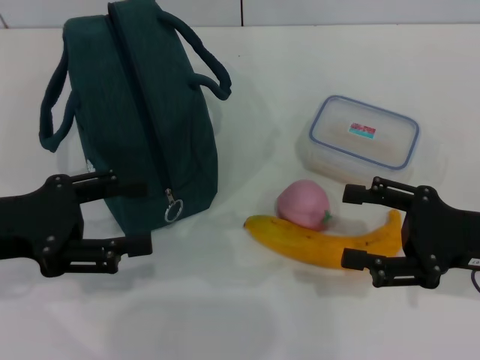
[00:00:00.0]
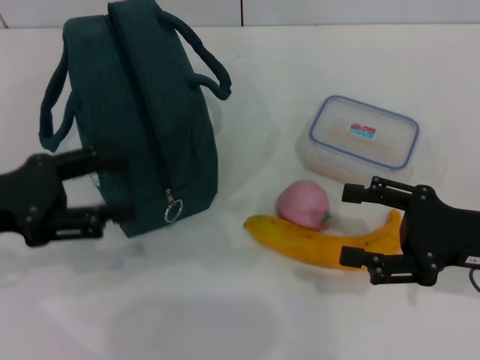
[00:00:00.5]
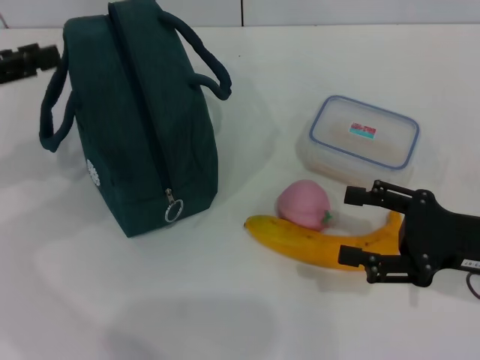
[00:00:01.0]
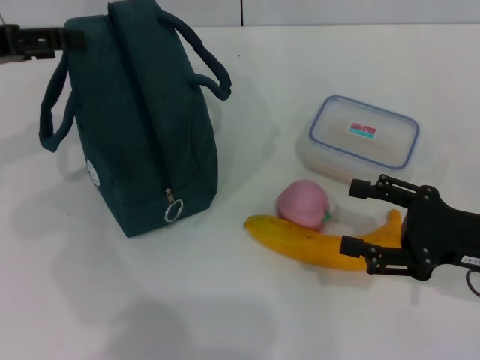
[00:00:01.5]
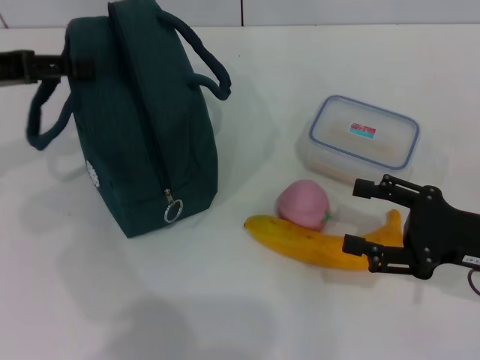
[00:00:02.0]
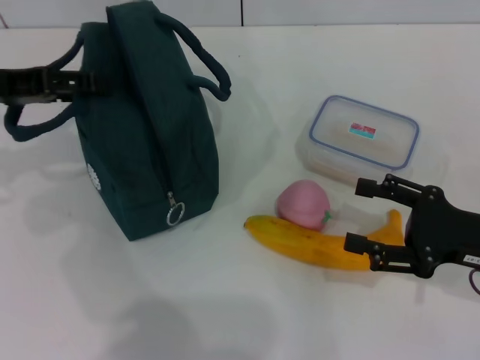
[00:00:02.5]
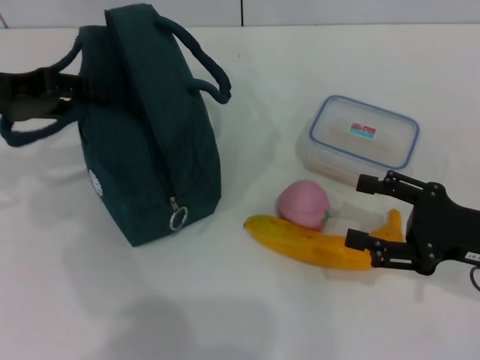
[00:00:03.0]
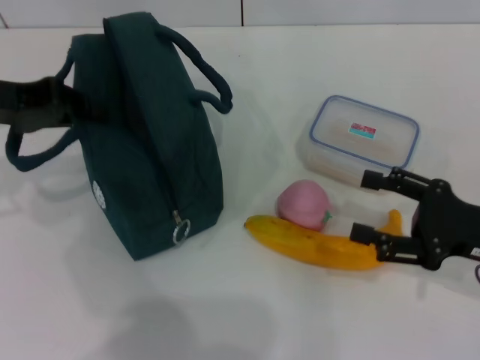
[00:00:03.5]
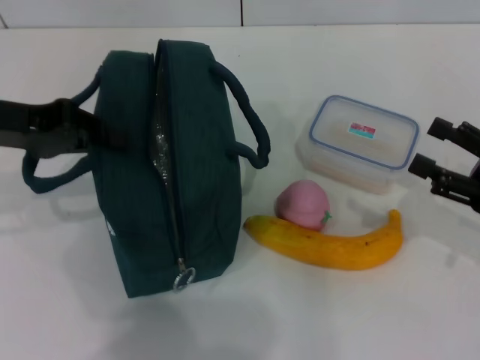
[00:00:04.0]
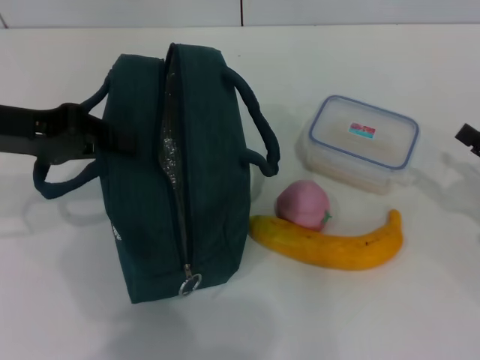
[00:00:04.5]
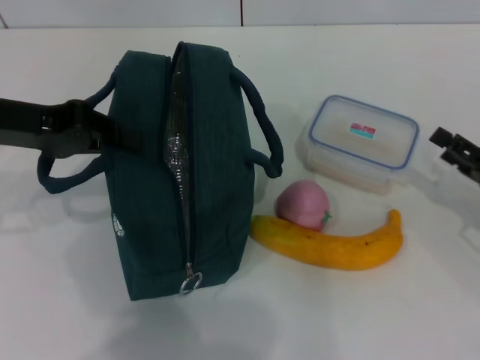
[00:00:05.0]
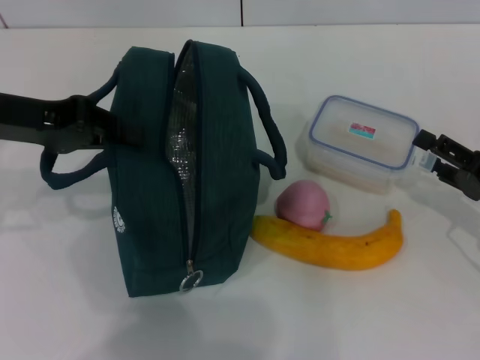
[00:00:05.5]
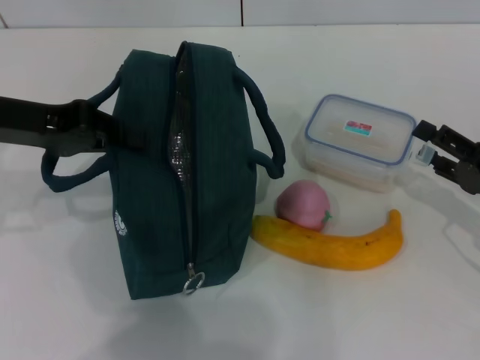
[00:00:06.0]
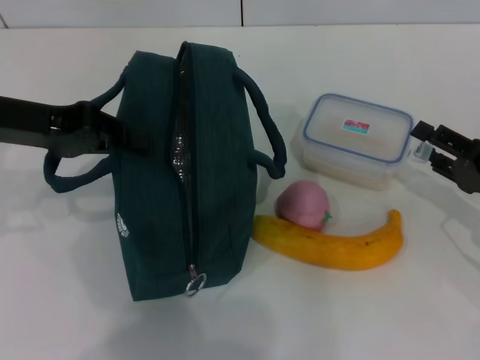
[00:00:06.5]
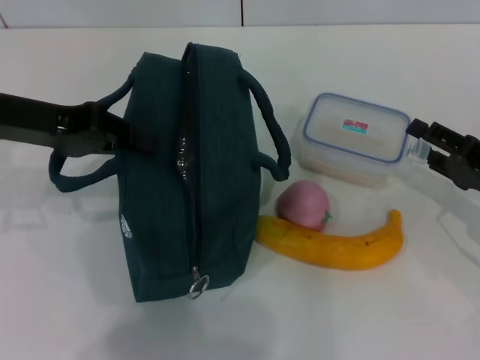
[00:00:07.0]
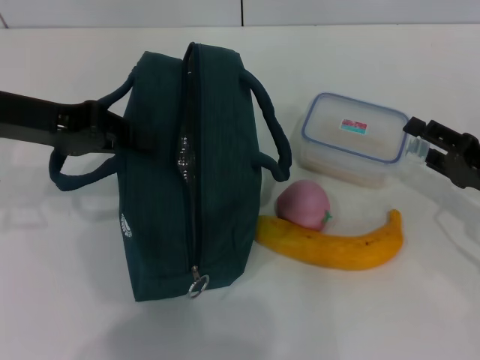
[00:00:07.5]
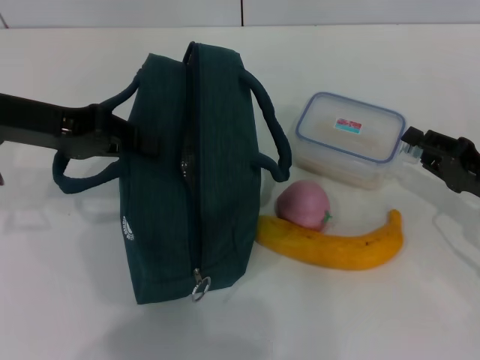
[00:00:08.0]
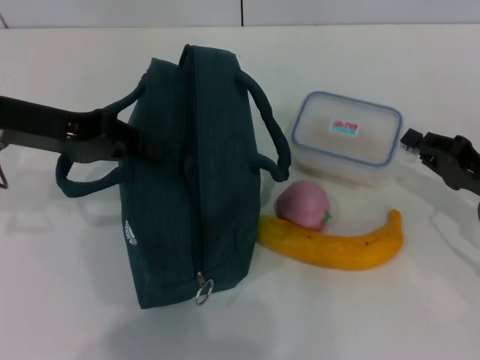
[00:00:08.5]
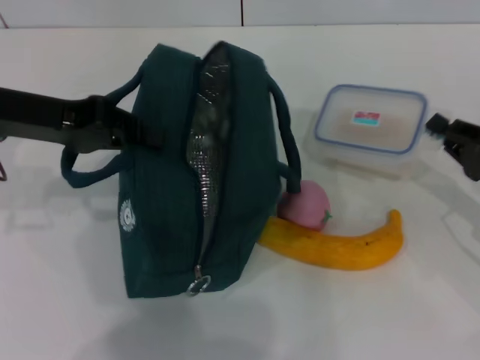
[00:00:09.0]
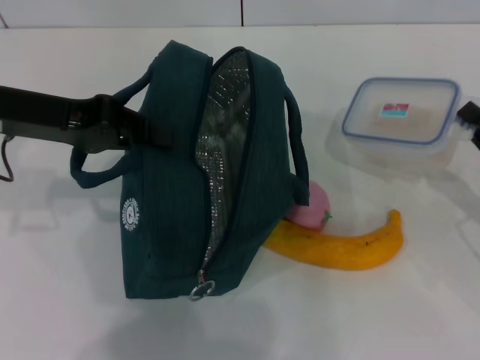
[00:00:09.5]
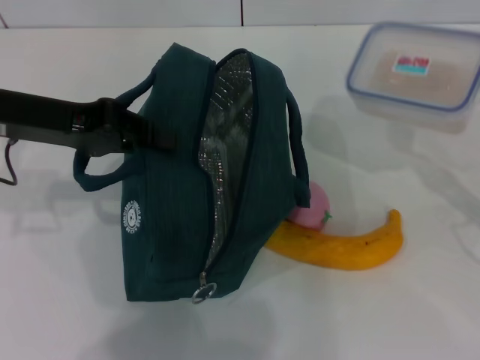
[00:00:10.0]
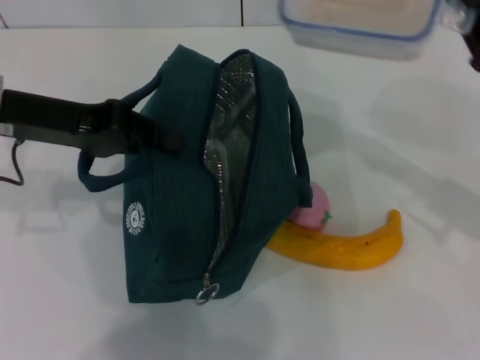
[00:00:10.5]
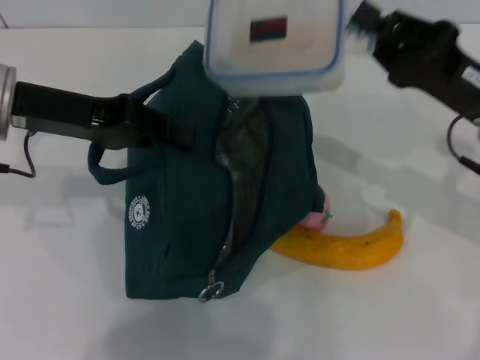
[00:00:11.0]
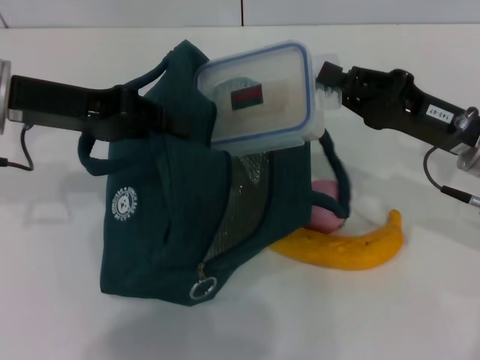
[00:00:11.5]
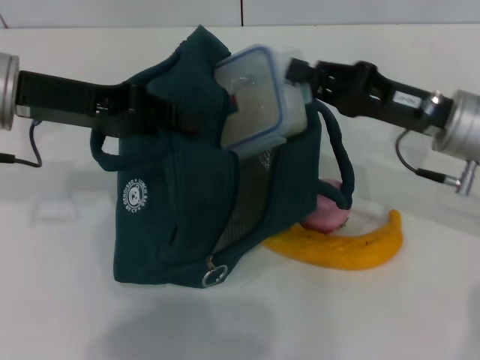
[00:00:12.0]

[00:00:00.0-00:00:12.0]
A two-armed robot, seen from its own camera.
Step, 00:00:00.0 to 00:00:03.0: Hold the lunch bag with your left hand.
Step, 00:00:03.5 to 00:00:08.5: Pick up the lunch box with your right hand.
00:00:00.0 to 00:00:02.0: The left gripper goes some 15 cm forward and upward.
00:00:02.0 to 00:00:04.0: The left gripper closes its fingers.
00:00:06.0 to 00:00:08.0: The right gripper closes.
00:00:08.0 to 00:00:10.0: The right gripper shifts by approximately 5 cm, and closes.
00:00:10.0 to 00:00:12.0: The right gripper heads to the left and forward, covering approximately 15 cm.

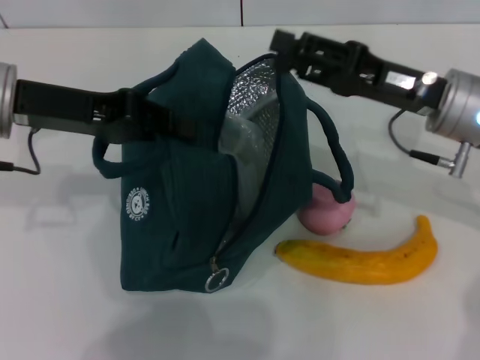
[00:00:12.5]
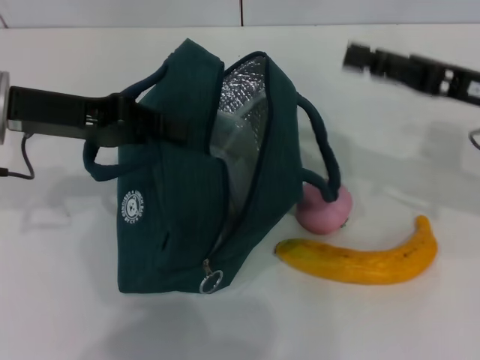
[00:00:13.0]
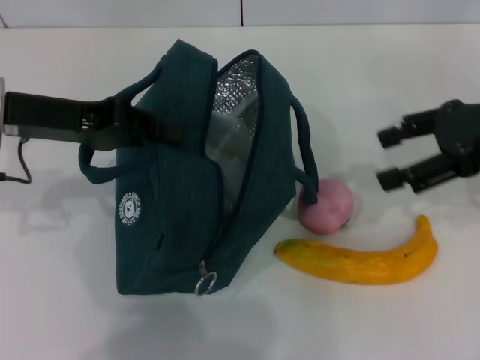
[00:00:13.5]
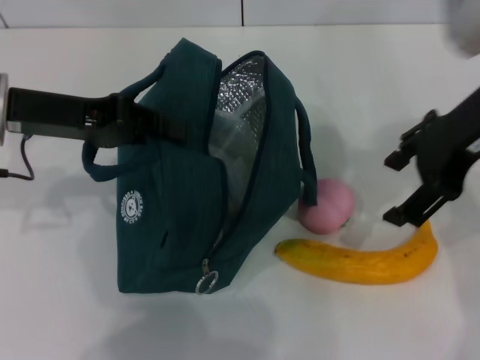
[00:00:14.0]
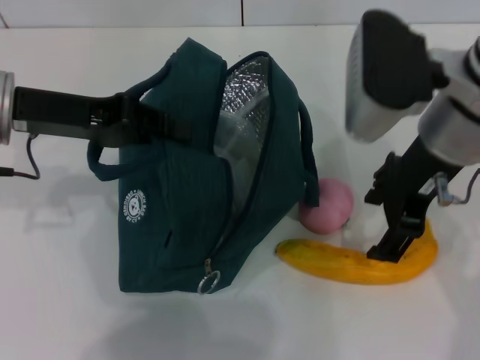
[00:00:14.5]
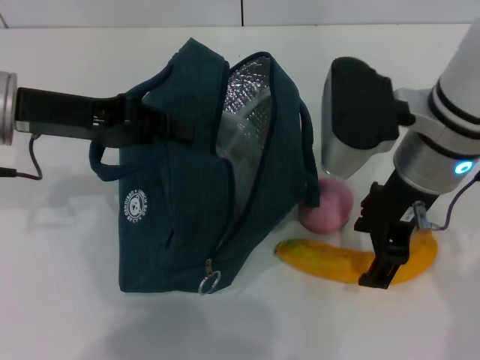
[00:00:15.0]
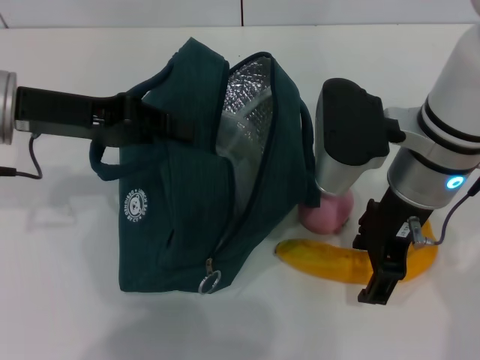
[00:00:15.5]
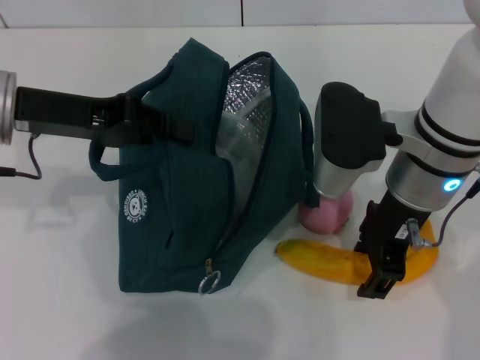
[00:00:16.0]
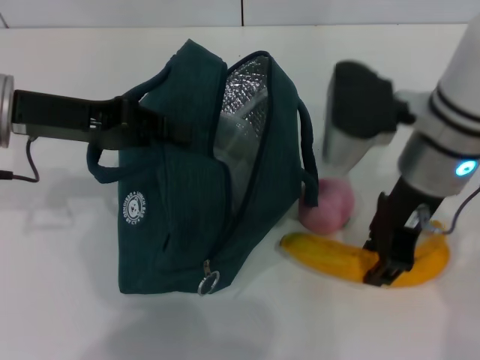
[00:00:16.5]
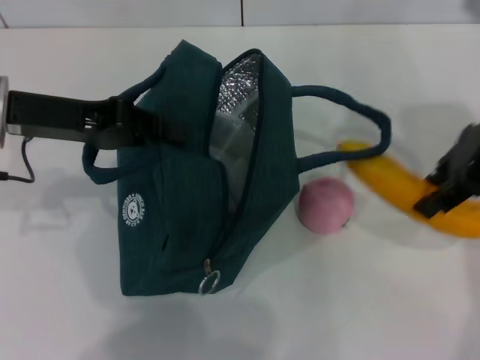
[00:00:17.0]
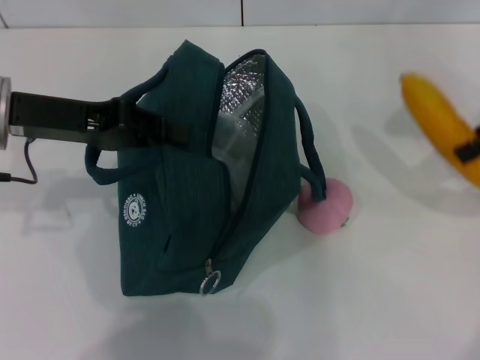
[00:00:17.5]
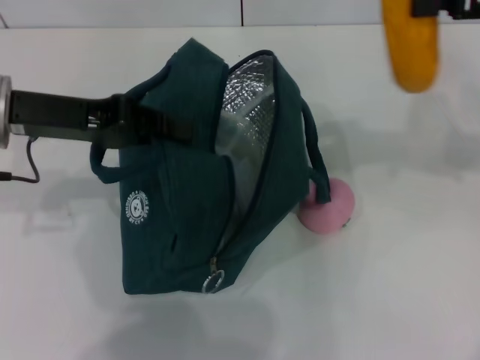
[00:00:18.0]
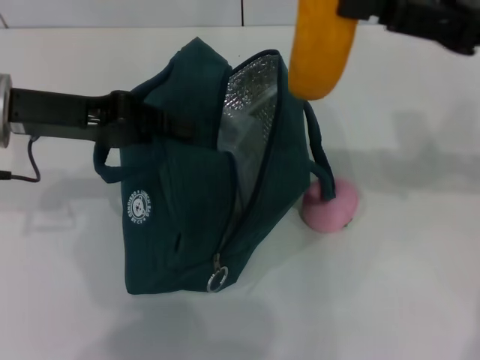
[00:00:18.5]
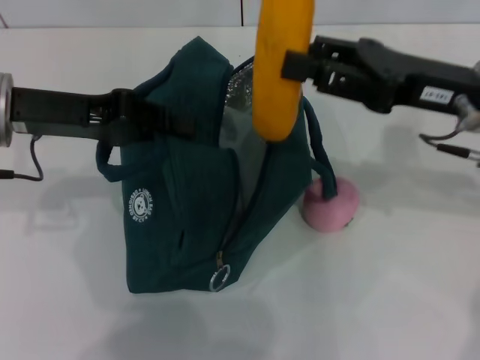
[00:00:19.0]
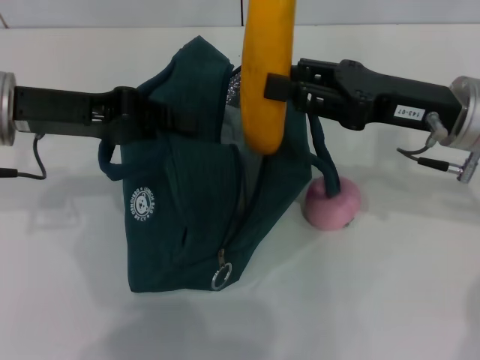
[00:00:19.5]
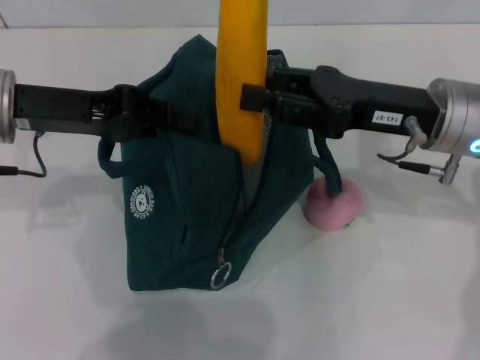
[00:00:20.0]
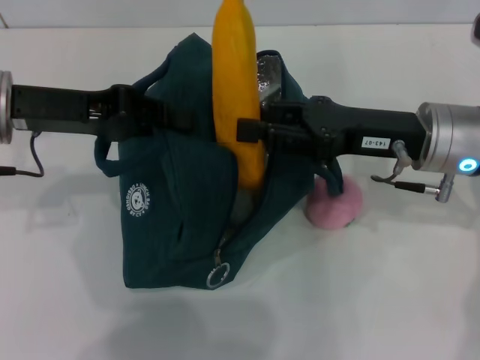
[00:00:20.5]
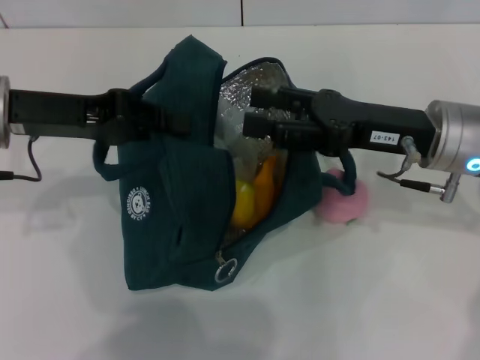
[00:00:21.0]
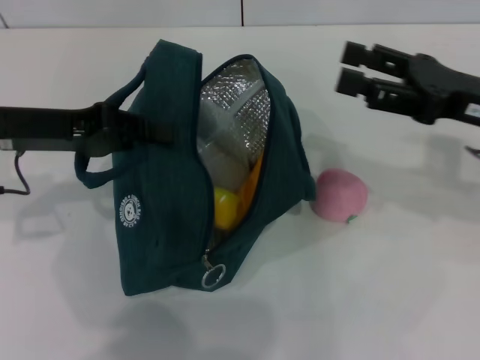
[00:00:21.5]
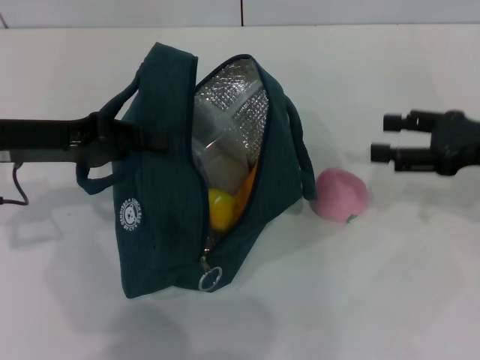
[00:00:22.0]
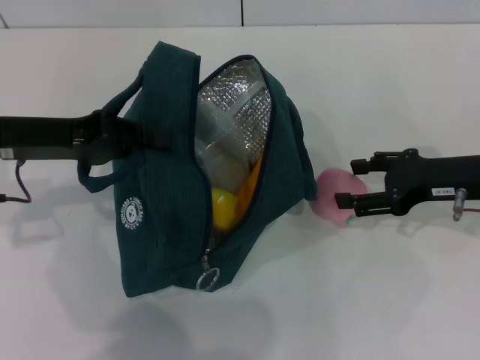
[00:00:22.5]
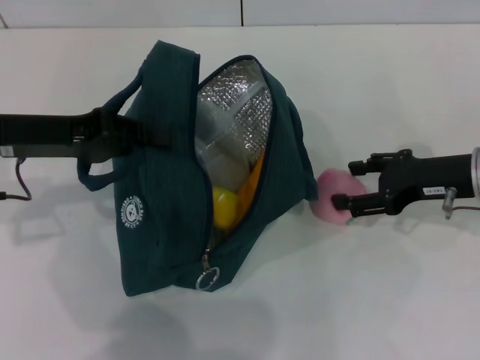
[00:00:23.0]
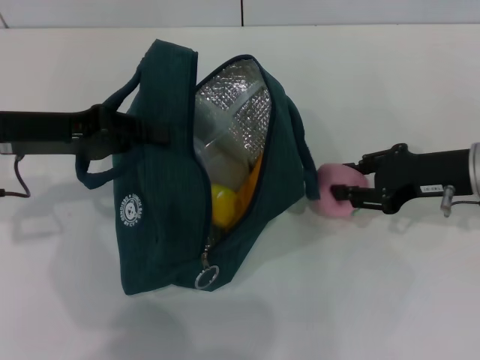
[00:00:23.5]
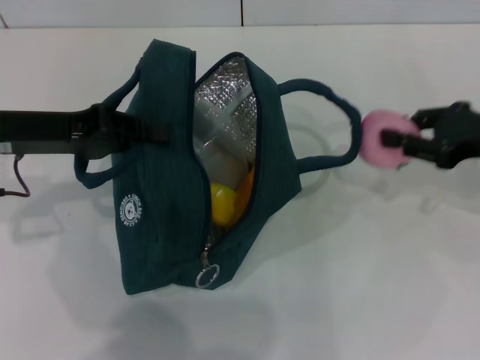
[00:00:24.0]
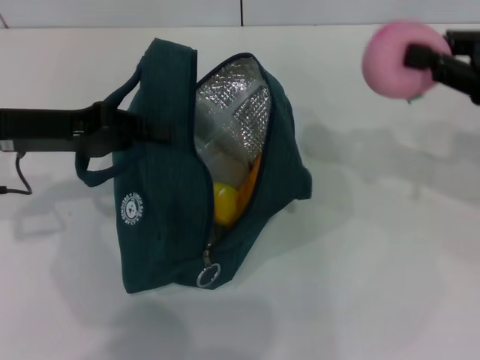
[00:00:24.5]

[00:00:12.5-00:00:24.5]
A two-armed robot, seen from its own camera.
Step, 00:00:13.0 to 00:00:16.0: Take the banana with your right hand.
Step, 00:00:16.5 to 00:00:21.0: Put the banana into the lunch bag with your right hand.
Step, 00:00:21.5 to 00:00:23.0: Grab the peach with your right hand.
00:00:12.5 to 00:00:14.5: The right gripper is displaced upward and to the left by some 10 cm, and opens up.
00:00:14.5 to 00:00:16.5: The right gripper closes.
00:00:16.5 to 00:00:18.5: The right gripper heads to the right, covering some 10 cm.
00:00:18.5 to 00:00:20.5: The right gripper is displaced downward and to the left by about 10 cm.
00:00:20.5 to 00:00:22.5: The right gripper is displaced to the right by about 10 cm, and opens up.
00:00:22.5 to 00:00:24.5: The right gripper shifts about 10 cm upward, and closes up.

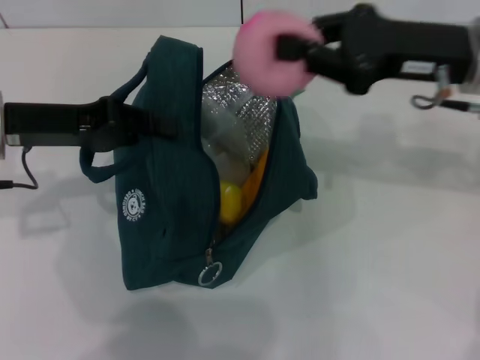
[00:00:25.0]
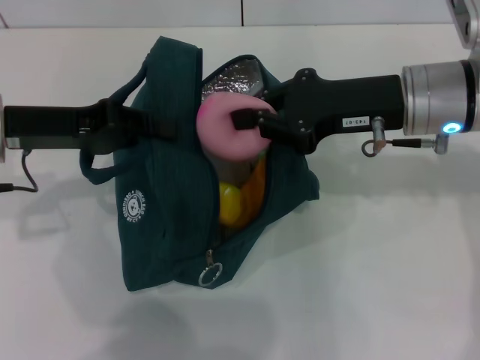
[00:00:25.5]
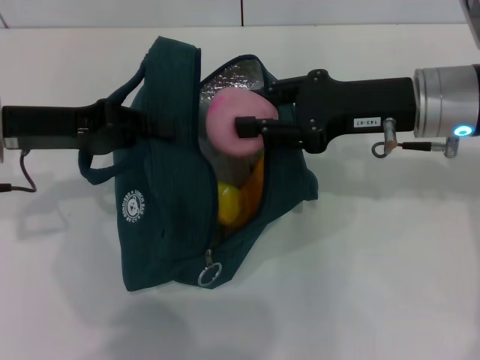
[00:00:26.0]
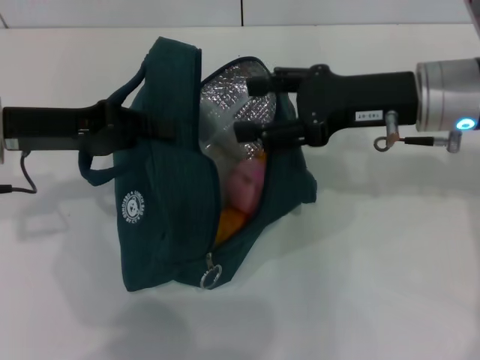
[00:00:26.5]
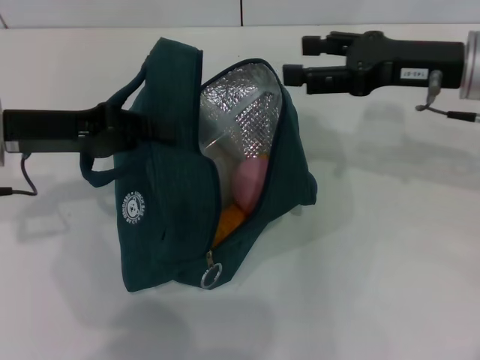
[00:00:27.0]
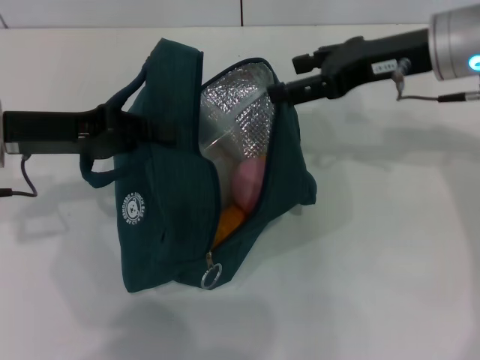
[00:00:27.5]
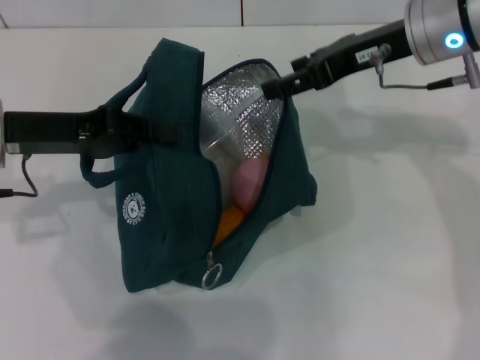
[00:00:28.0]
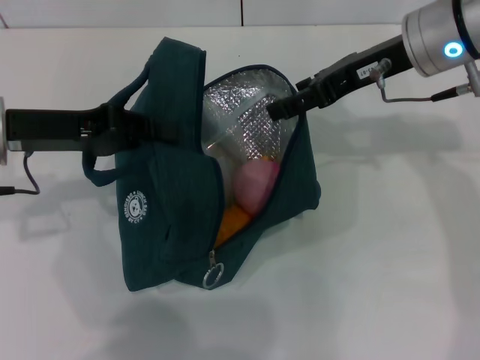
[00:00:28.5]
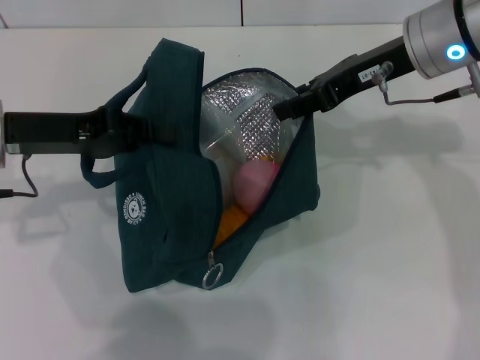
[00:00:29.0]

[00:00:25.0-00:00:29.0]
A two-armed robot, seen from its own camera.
00:00:25.0 to 00:00:27.0: The right gripper opens up.
00:00:27.0 to 00:00:29.0: The right gripper moves to the left, approximately 5 cm.
